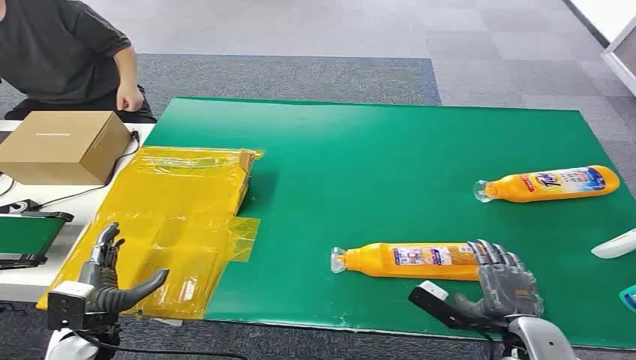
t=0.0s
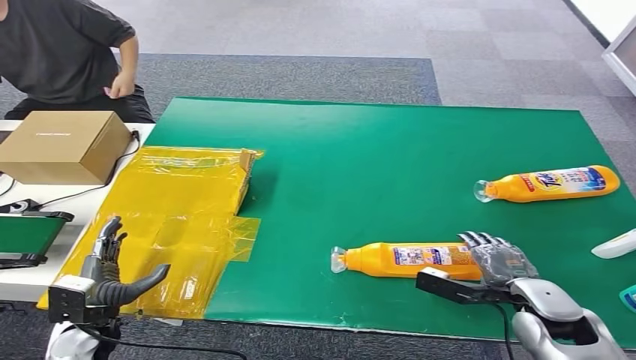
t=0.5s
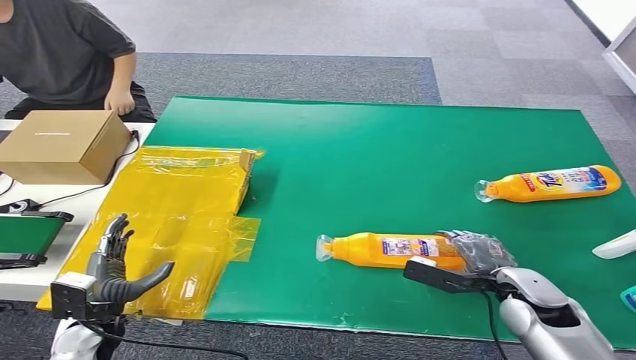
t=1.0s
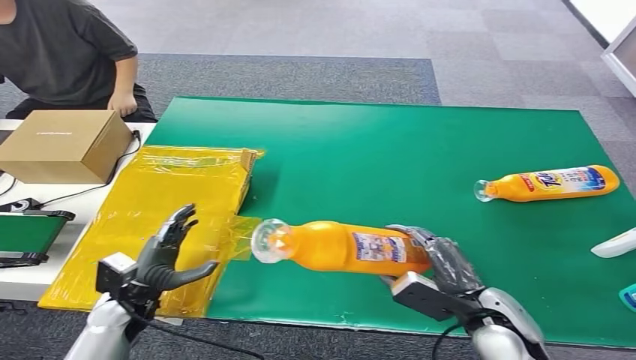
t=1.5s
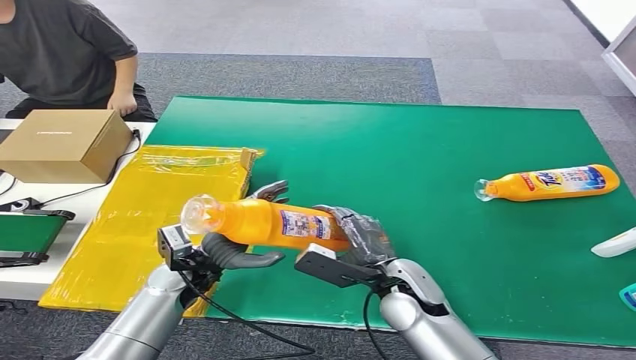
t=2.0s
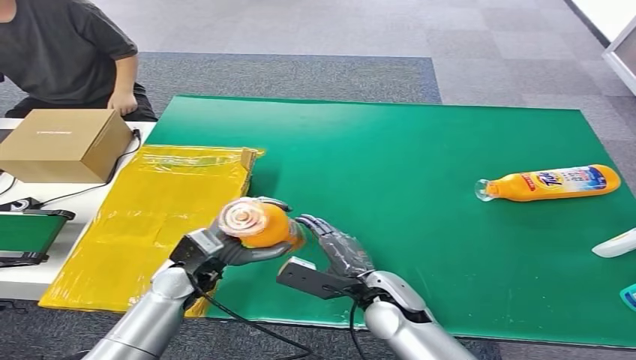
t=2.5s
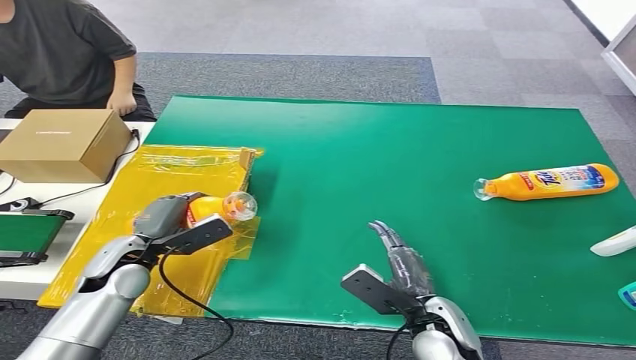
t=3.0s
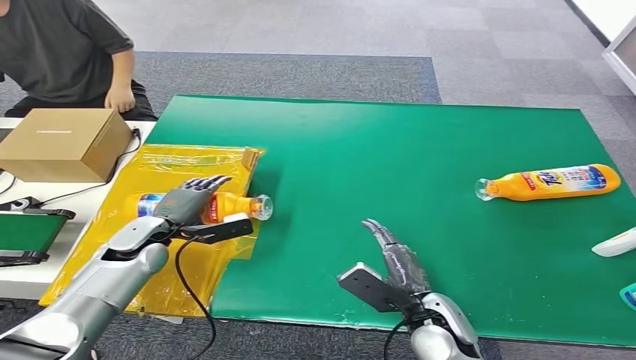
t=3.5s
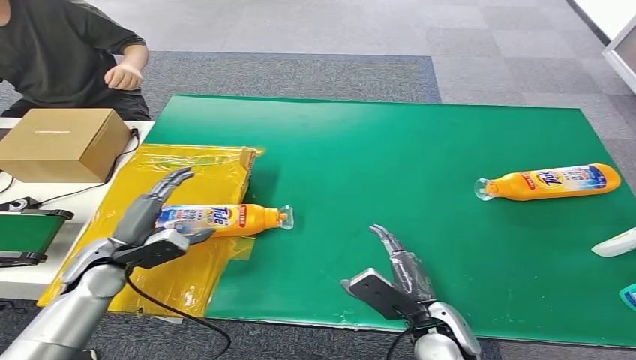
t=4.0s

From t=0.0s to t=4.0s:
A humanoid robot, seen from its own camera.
Step, from t=0.0s to t=1.5s: Pick up the bottle from the table.
Step, from t=2.0s to t=4.0s: Turn the bottle to the front side.
From t=2.0s to t=4.0s: The right hand goes approximately 10 cm backward and to the right. The left hand is displaced to the left by roughly 15 cm.
